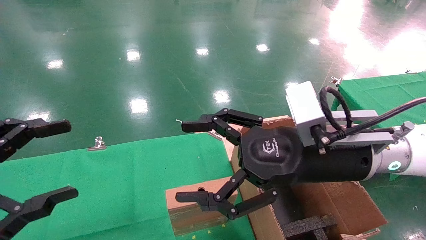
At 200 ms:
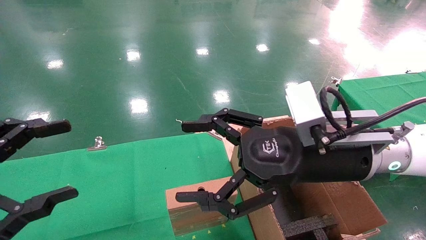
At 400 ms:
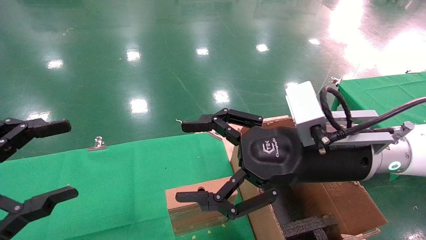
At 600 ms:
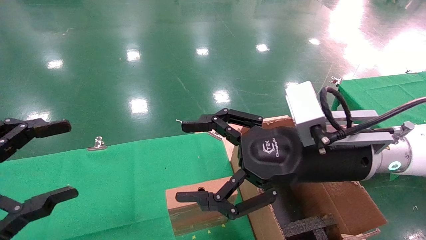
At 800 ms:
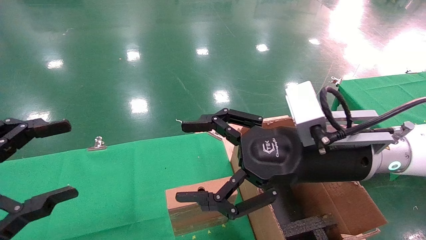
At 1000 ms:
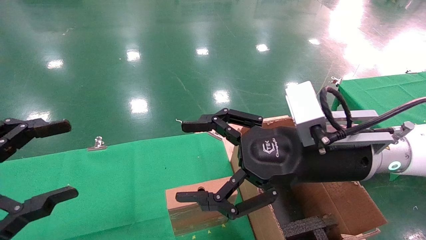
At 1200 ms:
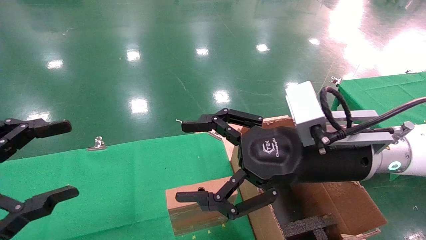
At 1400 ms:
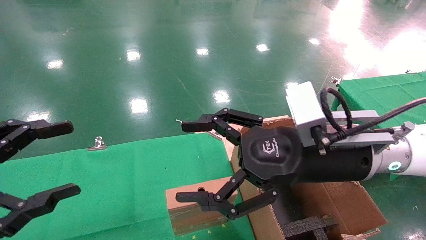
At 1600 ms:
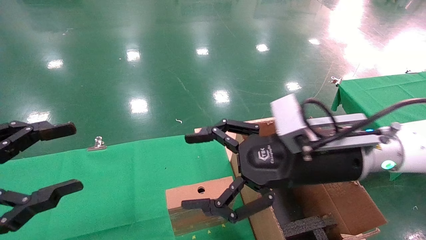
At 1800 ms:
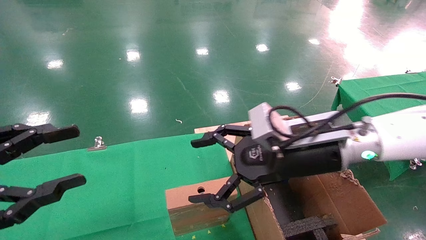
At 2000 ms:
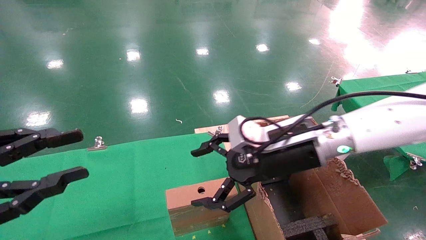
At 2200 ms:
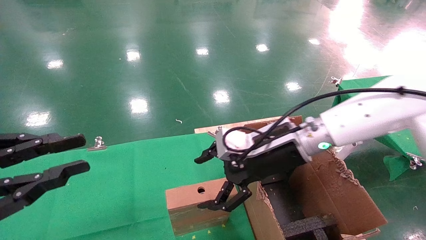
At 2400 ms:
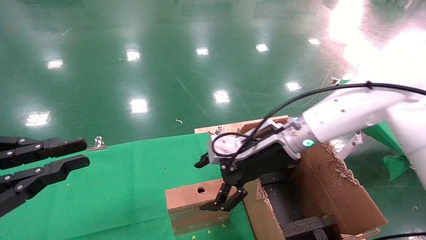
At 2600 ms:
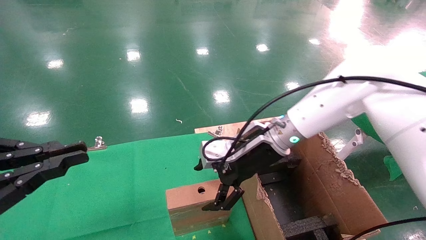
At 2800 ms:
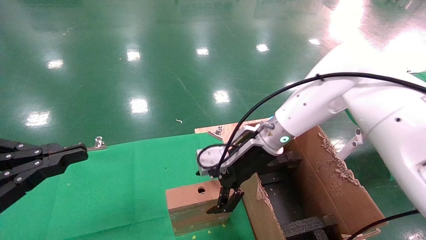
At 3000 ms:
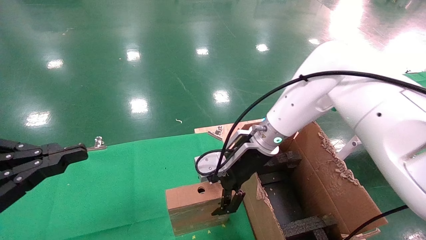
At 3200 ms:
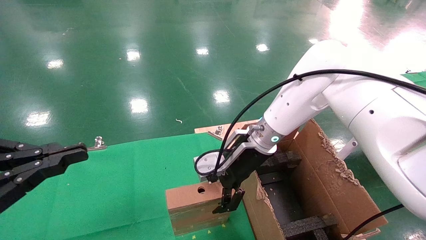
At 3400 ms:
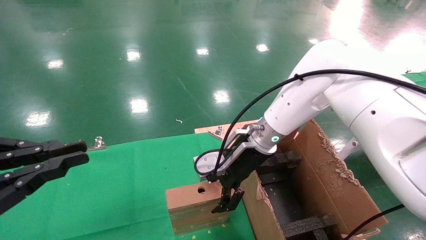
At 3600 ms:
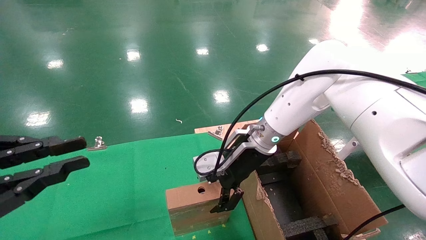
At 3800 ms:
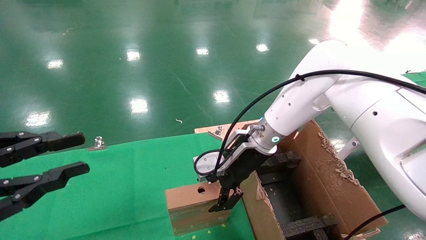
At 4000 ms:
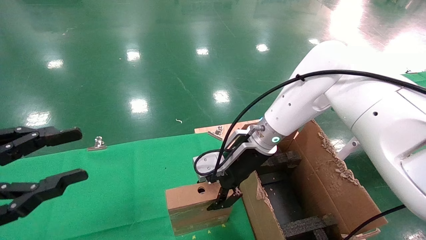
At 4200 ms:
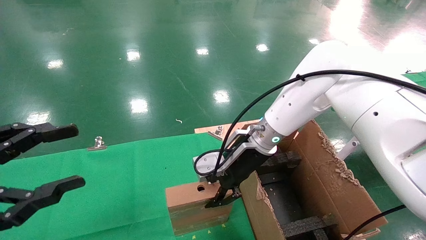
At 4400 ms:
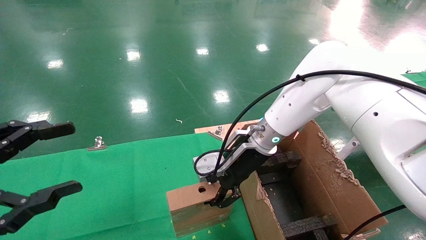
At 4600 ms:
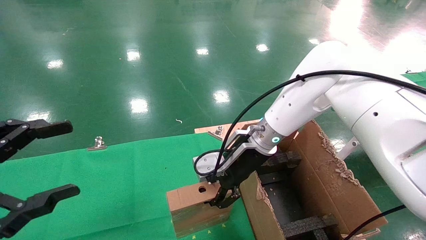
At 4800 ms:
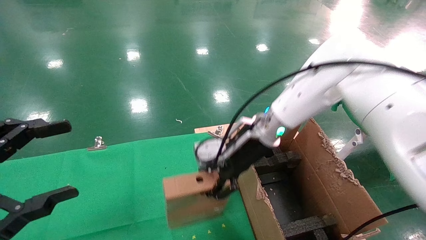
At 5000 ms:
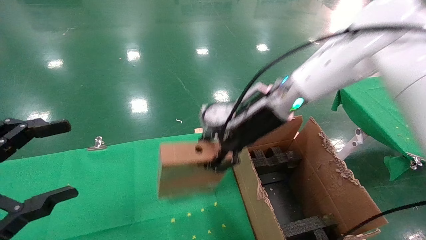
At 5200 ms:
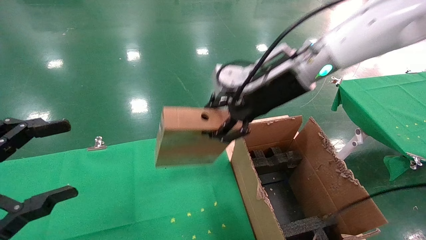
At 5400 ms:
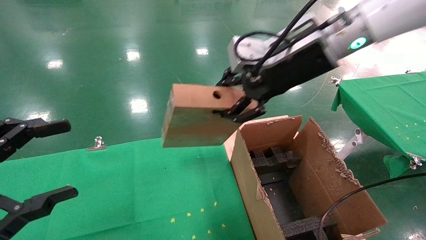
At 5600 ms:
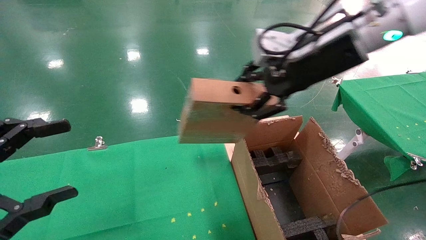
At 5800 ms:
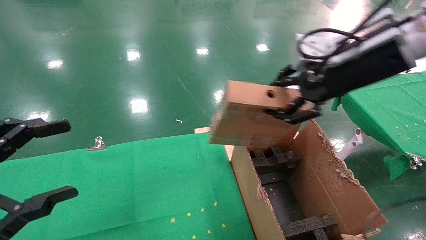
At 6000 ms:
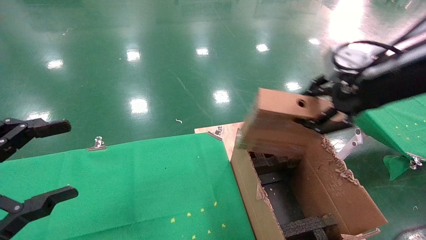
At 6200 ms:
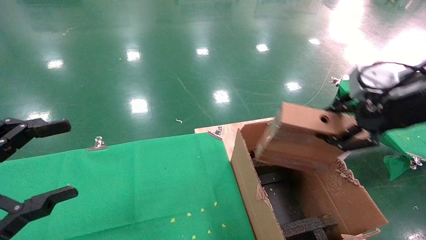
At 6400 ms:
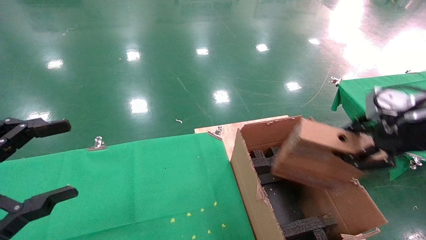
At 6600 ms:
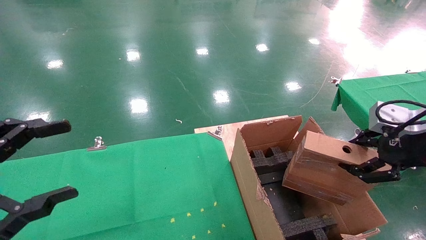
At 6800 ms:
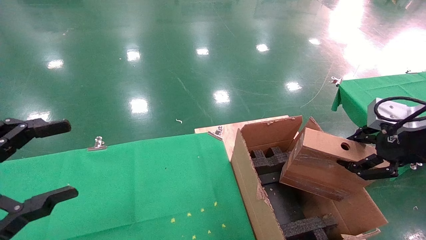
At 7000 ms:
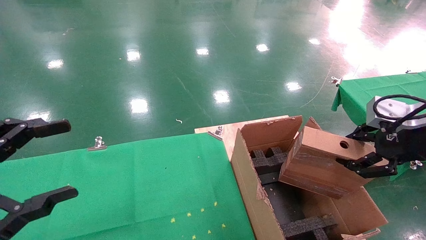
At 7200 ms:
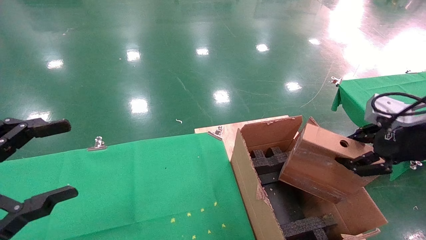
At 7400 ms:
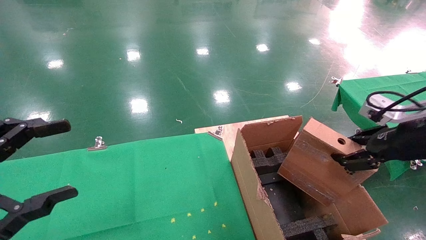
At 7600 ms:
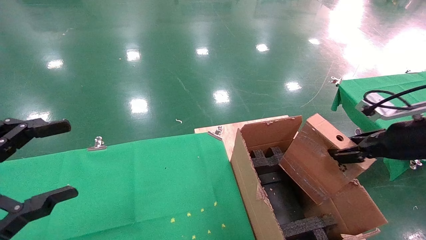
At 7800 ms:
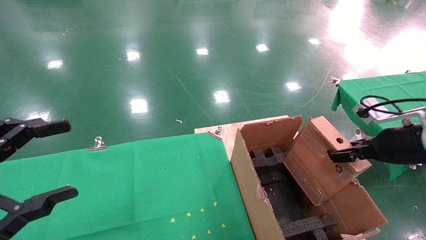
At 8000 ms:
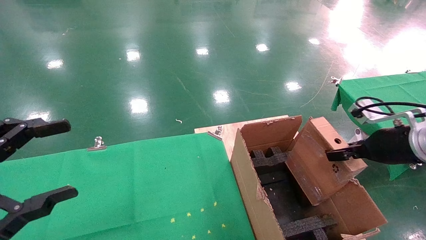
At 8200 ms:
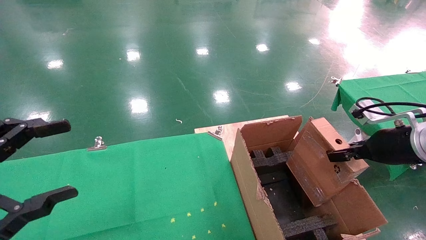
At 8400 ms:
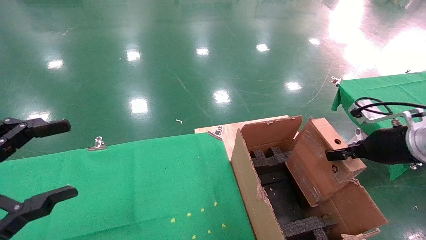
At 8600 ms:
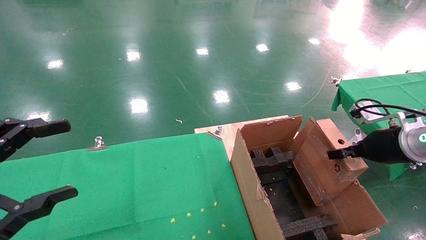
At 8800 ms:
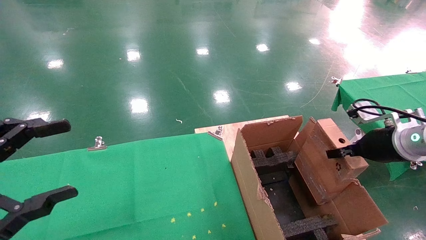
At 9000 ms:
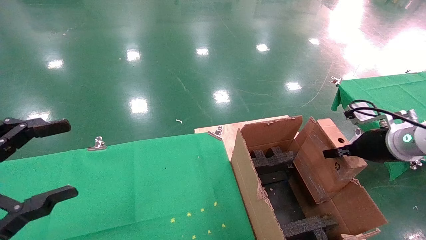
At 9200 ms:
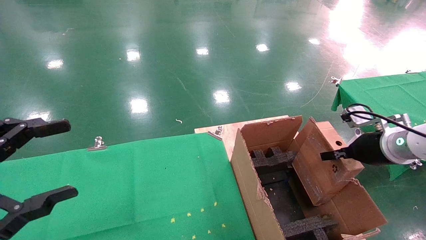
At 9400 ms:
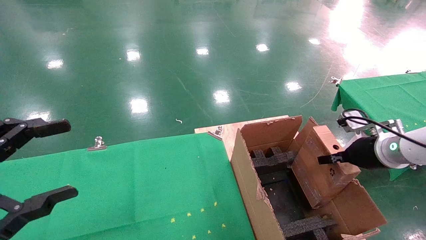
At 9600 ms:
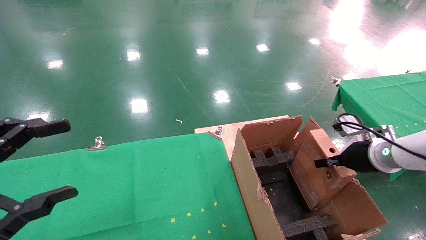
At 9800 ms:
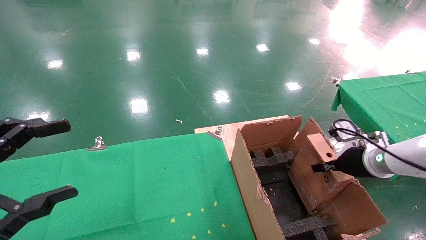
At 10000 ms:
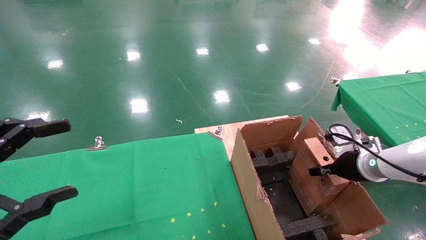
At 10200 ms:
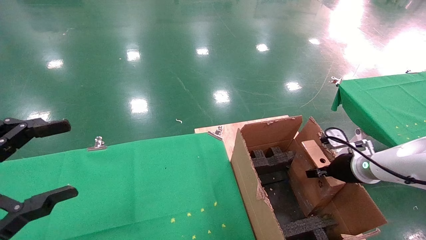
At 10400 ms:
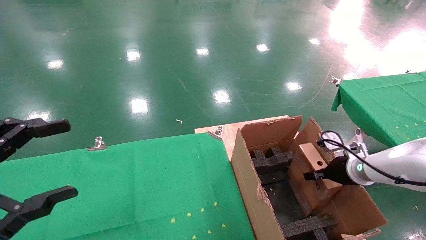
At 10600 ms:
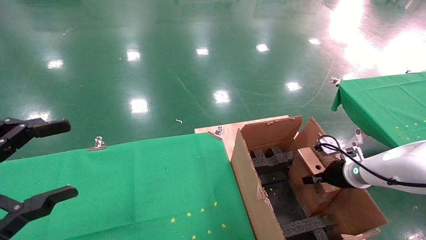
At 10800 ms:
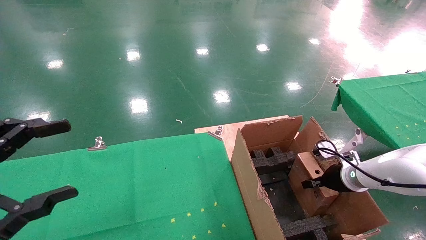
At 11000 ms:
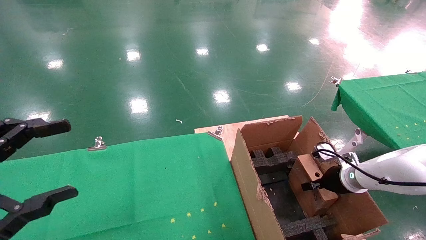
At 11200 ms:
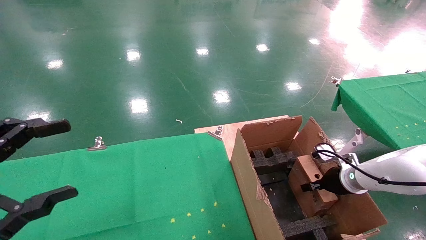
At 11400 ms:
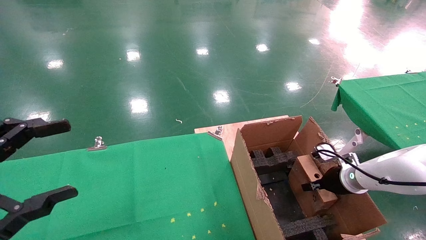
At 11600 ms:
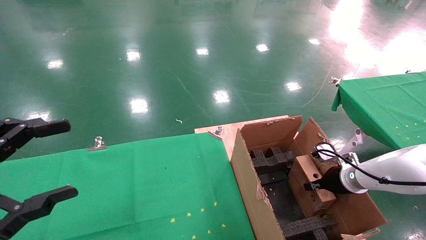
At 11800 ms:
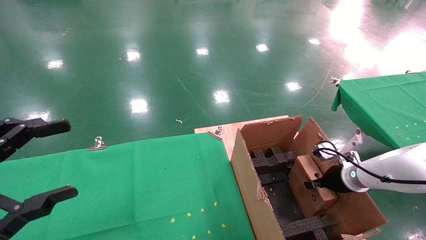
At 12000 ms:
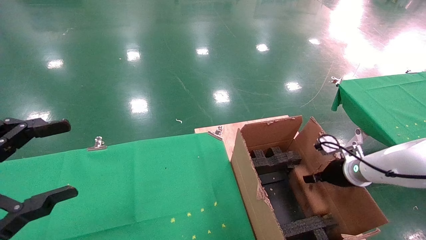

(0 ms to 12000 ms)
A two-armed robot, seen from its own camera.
Task of the whole recording: using a robotic arm to pick up a cardboard box and palace it the carton.
Step, 1800 ms - 4200 ms: Pick up the mouse and the power cord paper box.
Step, 4400 ms - 12000 ms: Place the mouse and the power cord paper box into the container.
0 ms - 1600 ms: The grippers stay close to where they were, moving slightly.
1600 ms - 3000 ms: The left gripper closes. The right gripper shifts about 15 cm forward and to the left.
3000 ms - 4400 ms: The left gripper opens up. The right gripper closes its fingers.
4400 ms - 6000 ms: The right gripper heads to the right, upward and backward, covering approximately 30 cm.
6000 ms - 7600 ms: The right gripper travels downward and to the right by approximately 15 cm.
7600 ms - 9000 ms: The right gripper goes approximately 5 cm forward.
9000 ms - 10400 ms: The right gripper travels downward and forward by approximately 10 cm.
10400 ms - 12000 ms: The right gripper opens its fingers.

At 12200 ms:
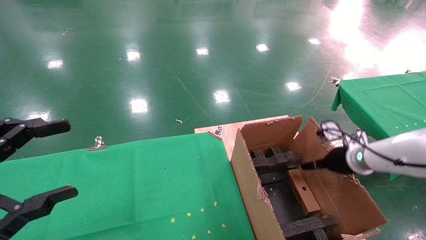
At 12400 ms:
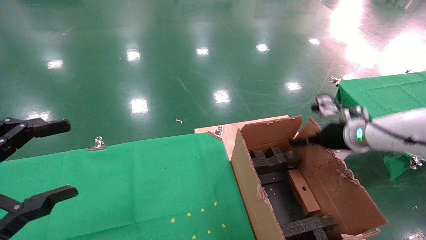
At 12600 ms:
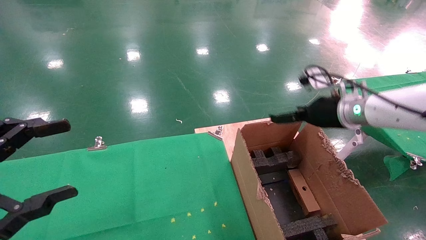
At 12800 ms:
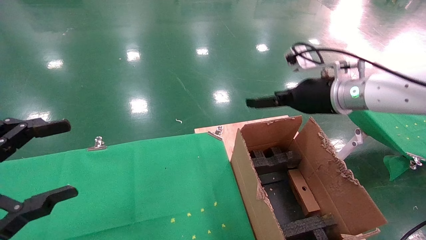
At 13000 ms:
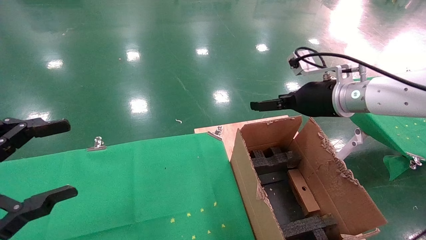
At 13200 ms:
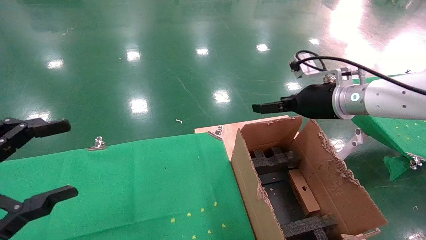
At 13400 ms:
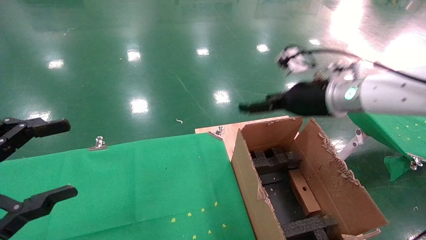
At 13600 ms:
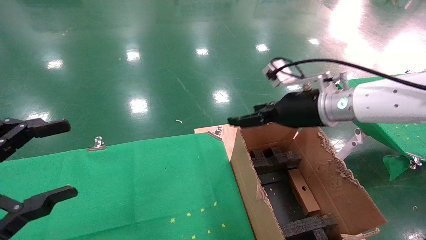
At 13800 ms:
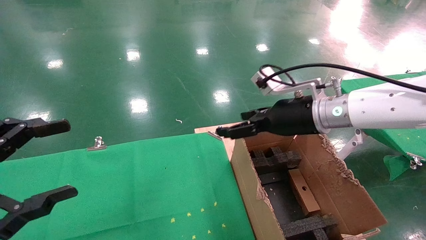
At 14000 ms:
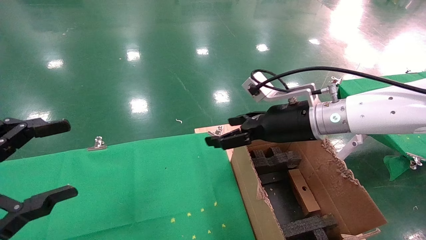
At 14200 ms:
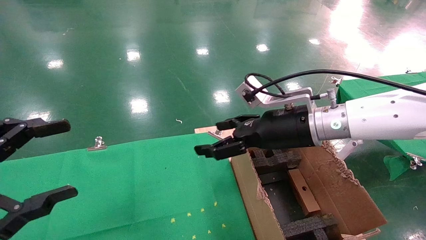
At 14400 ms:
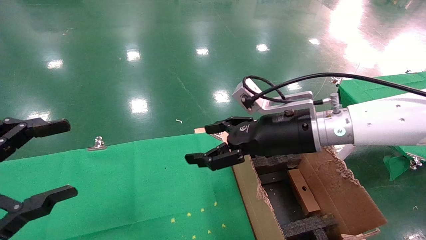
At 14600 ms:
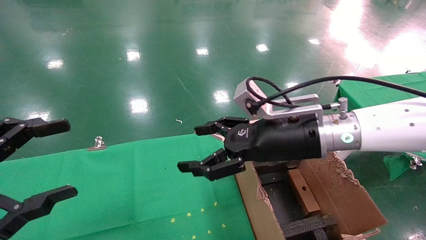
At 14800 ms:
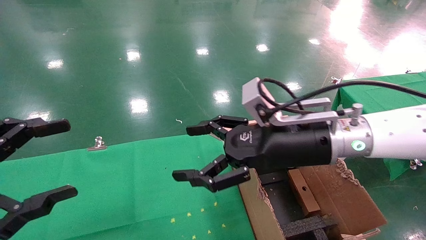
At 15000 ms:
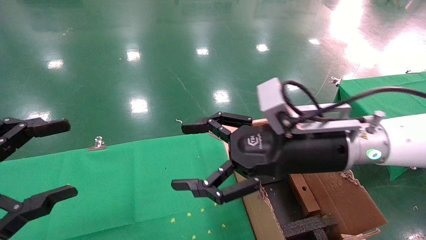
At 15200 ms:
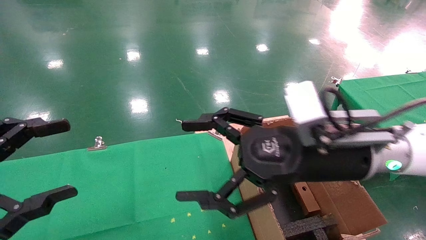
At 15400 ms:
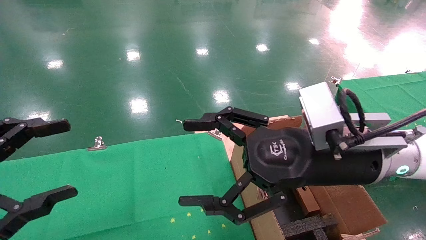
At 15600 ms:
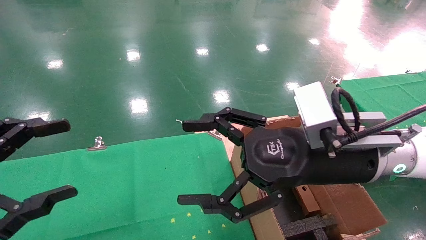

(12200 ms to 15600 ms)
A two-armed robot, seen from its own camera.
Task of the whole recording: using a robotic arm to pick up a cardboard box and palace it the carton.
12200 ms - 13800 ms: The right gripper moves to the left and upward, roughly 20 cm, and opens its fingers.
13800 ms - 15600 ms: The right gripper travels backward by about 10 cm.

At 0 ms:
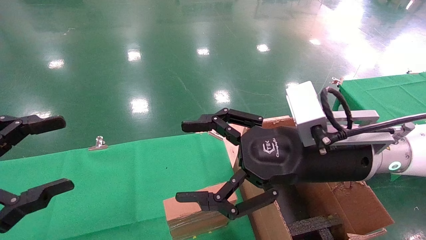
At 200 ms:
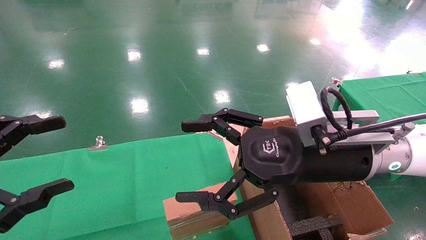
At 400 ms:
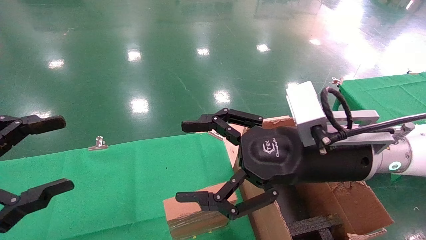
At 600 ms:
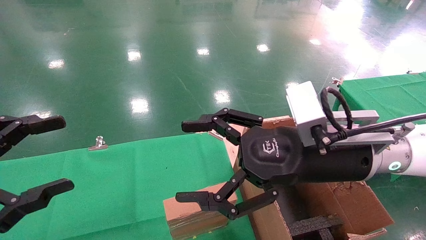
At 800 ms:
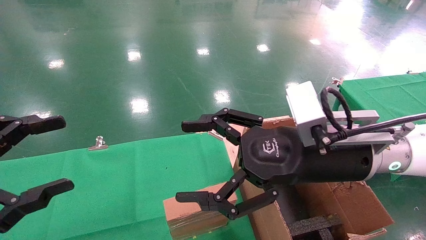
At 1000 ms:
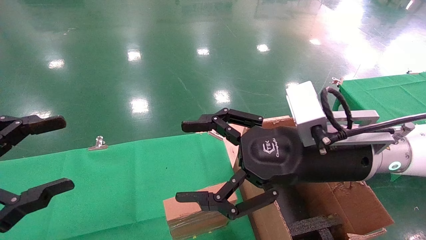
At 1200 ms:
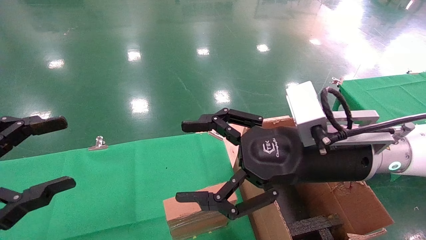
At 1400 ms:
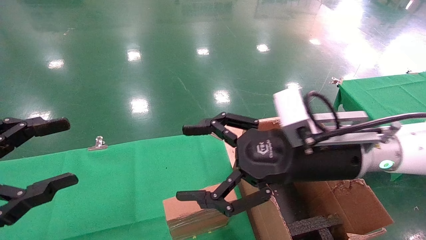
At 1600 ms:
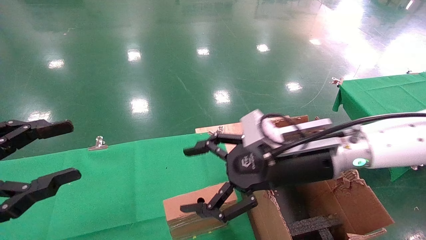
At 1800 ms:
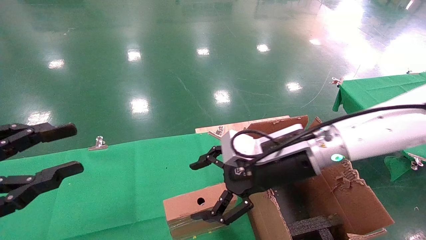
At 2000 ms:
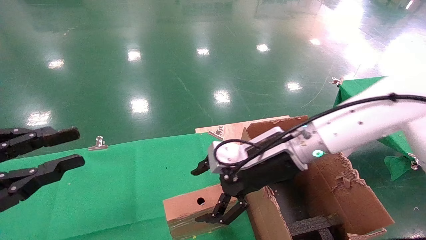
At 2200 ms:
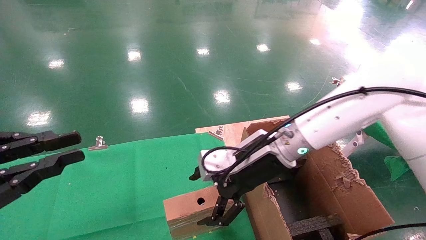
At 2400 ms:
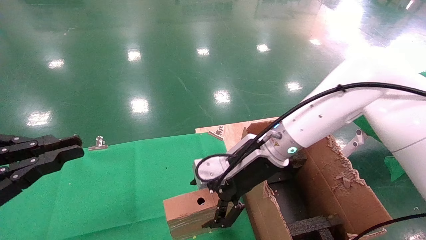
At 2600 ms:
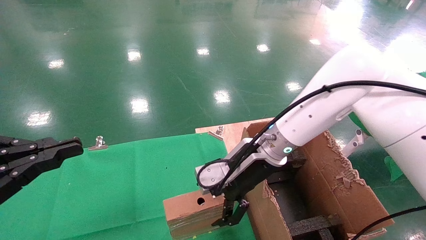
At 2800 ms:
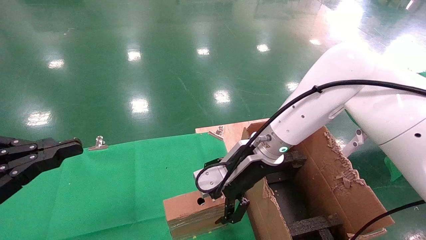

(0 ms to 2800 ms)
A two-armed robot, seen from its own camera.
Task of the whole recording: using a robotic arm to pick up a cardboard box and palace it the carton.
0 ms - 1400 ms: The grippers stay close to where they were, moving slightly.
1400 ms - 2800 ms: The left gripper closes; the right gripper heads forward and to the left, covering about 10 cm.
